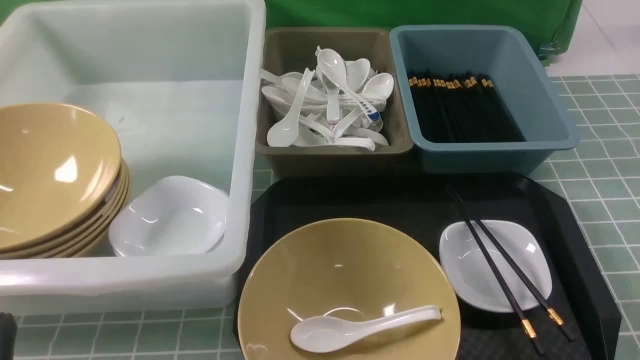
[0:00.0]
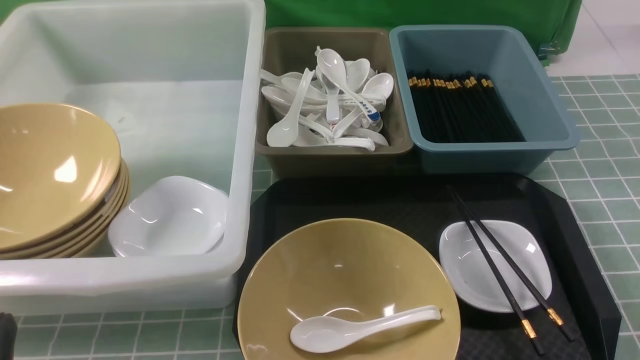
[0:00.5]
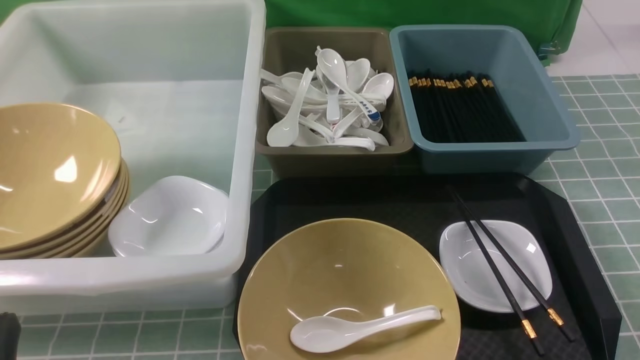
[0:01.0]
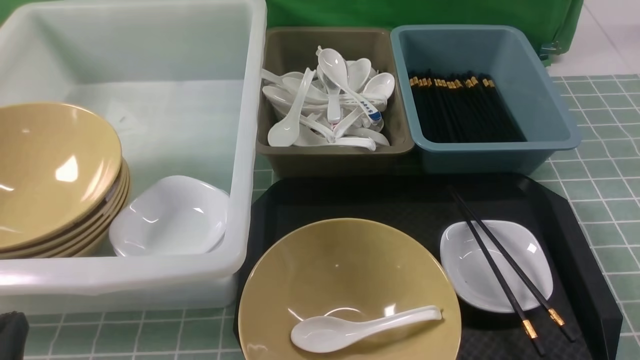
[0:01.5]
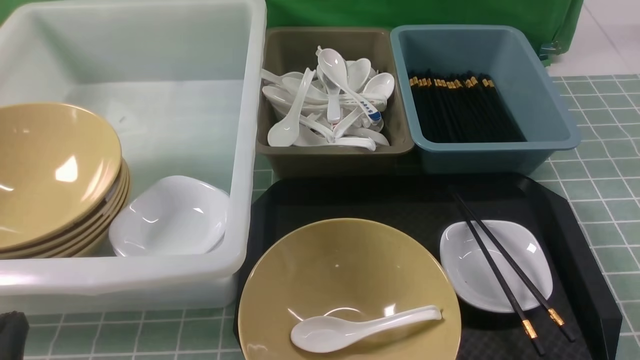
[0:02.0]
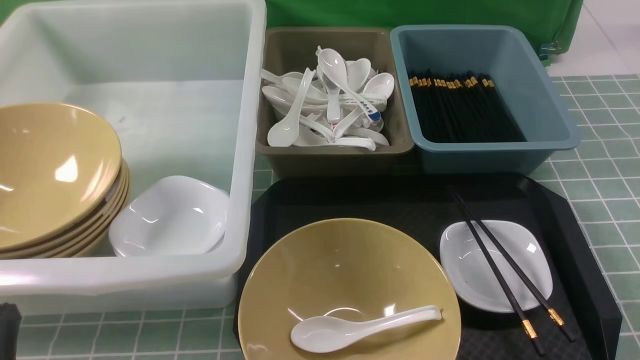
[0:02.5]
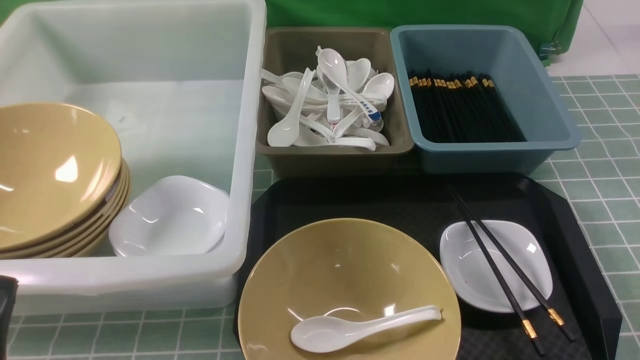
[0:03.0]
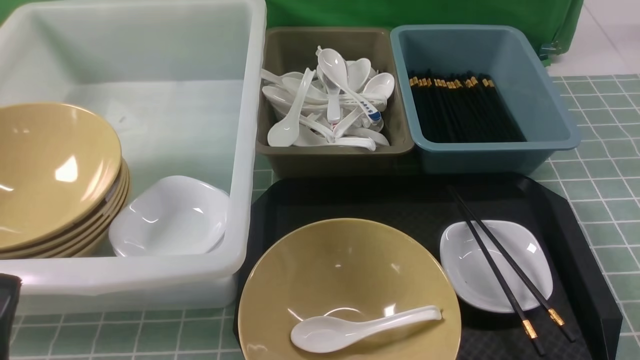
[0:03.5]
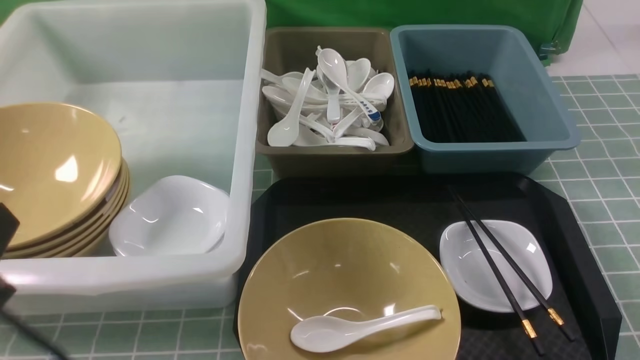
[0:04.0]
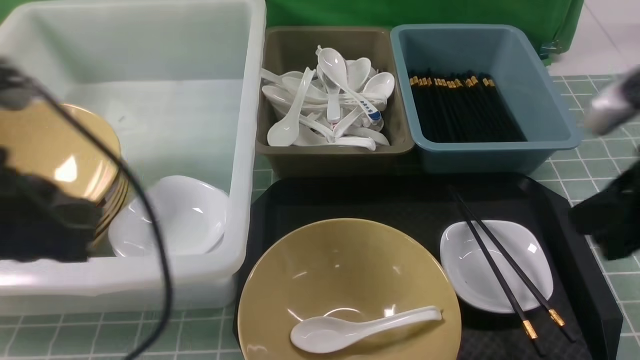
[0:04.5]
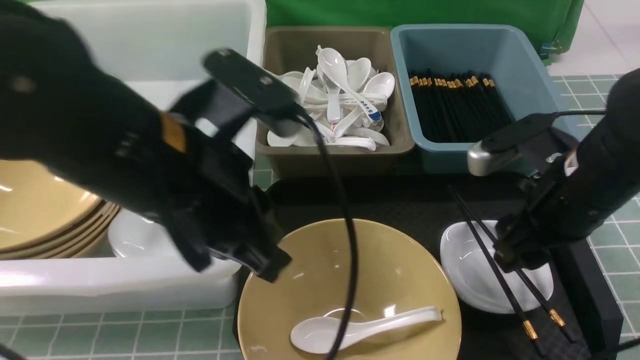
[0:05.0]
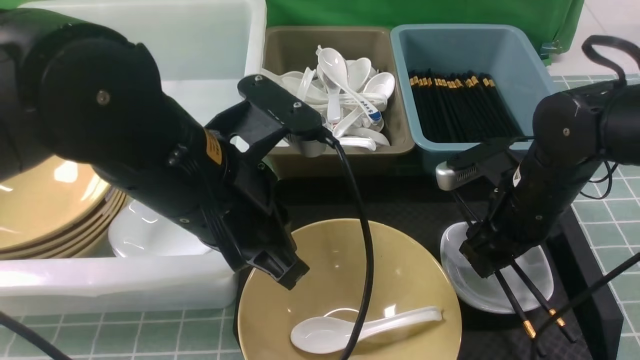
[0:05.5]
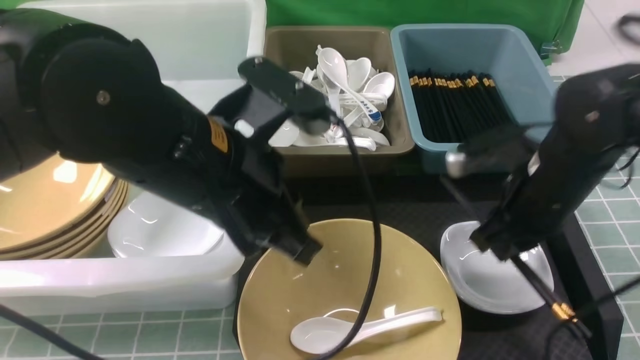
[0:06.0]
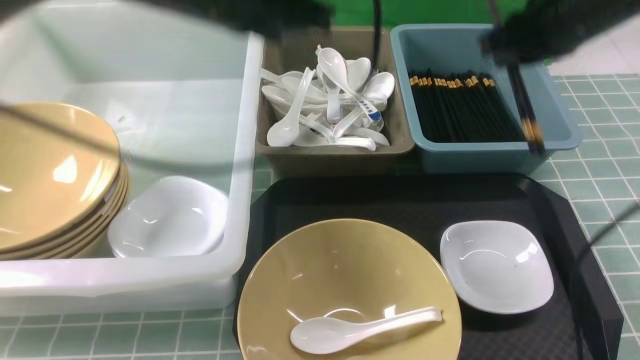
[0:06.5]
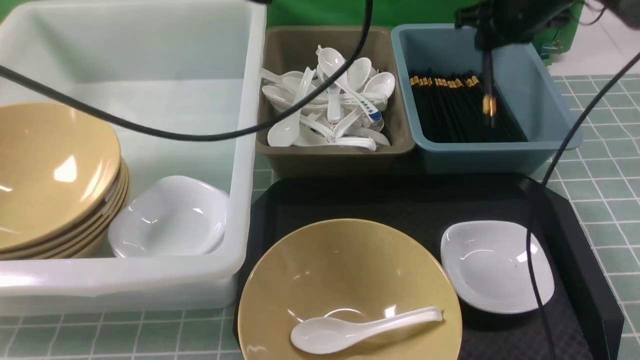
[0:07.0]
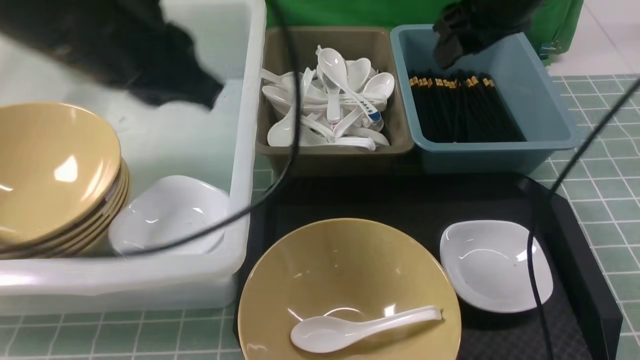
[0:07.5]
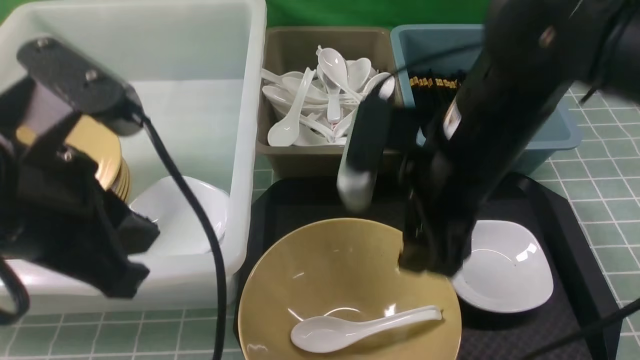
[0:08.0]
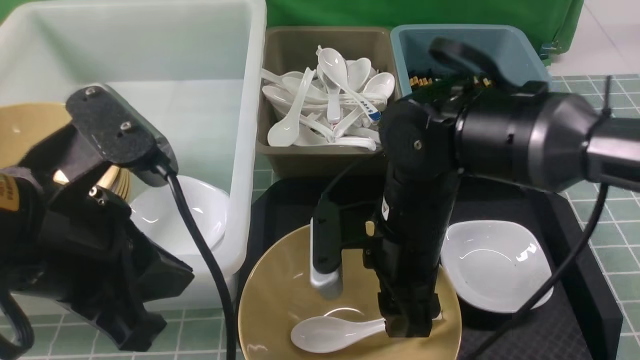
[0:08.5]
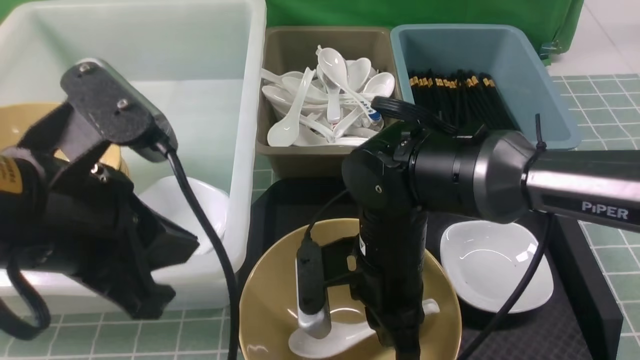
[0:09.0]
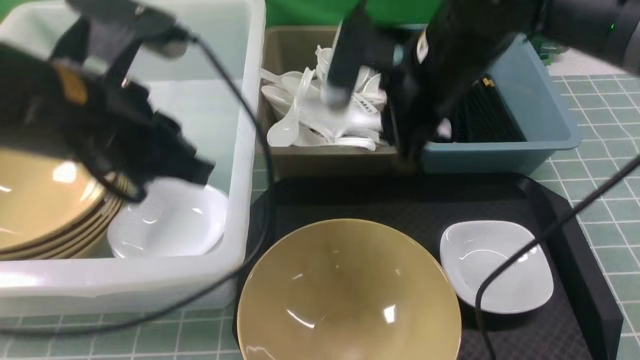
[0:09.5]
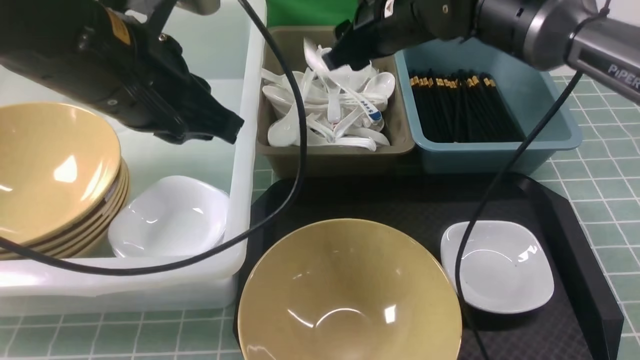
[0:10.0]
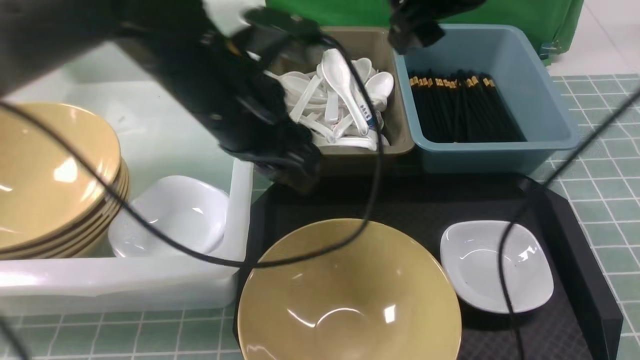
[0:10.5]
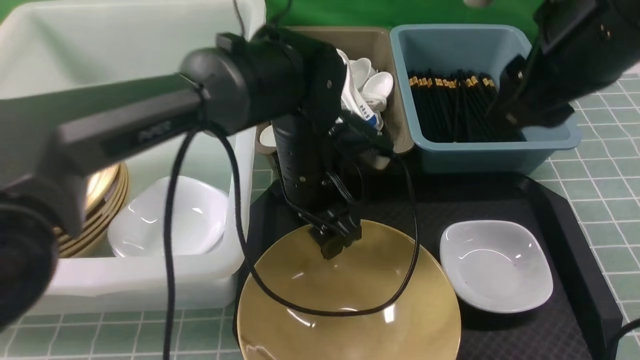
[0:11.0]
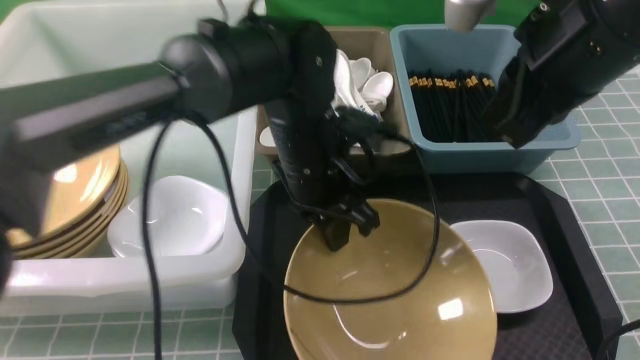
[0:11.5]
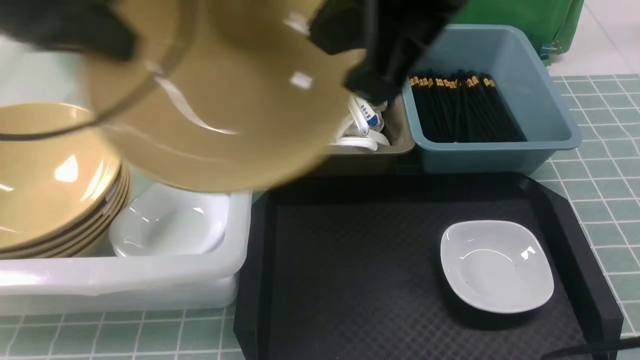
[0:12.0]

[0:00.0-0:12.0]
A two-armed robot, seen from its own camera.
Task of the whole recording: on blue table put chopsticks spoon bowls plates into blue grey white boxes.
Step, 0:00.0 to 0:05.5: use the right arm to grab the chopsticks.
Step, 0:06.5 to 0:07.0: use the right arm to put the chopsticks into the small storage box on the right.
Step, 0:07.5 to 0:09.0: use the right arm to grab the soup spoon in the middle.
Step, 0:09.5 to 0:10.0: use the right arm to put the soup spoon into the small storage box in the middle.
Step, 0:10.5 to 0:11.5: use the left arm to grab the yellow noodle bowl on the left.
0:00.0 to 0:02.0: Both grippers stay put.
0:02.0 to 0:04.0: The left gripper shifts about 15 cm upward.
0:04.0 to 0:06.0: The right gripper moves forward and to the left, roughly 25 cm, and opens and closes again. The left gripper moves to the right and forward, roughly 20 cm.
0:06.0 to 0:08.0: The right gripper travels to the left and upward by some 10 cm, travels forward and back again, about 20 cm each way, and opens. Meanwhile the left gripper is displaced to the left and backward by about 10 cm.
0:08.0 to 0:10.0: The left gripper is displaced forward by roughly 10 cm. The right gripper heads forward, covering some 15 cm, and closes, then opens again.
0:10.0 to 0:12.0: The left gripper moves to the left, about 10 cm, and opens, then closes again, while the right gripper goes roughly 25 cm backward and upward, and closes its fingers.

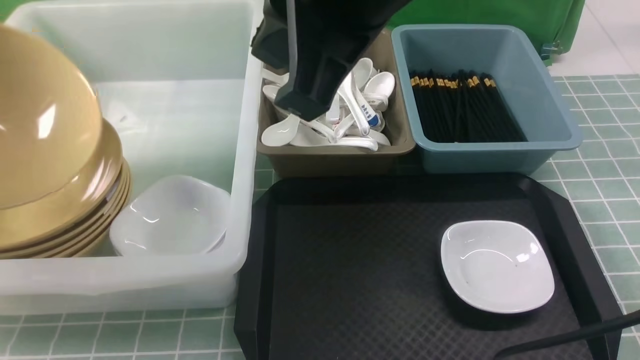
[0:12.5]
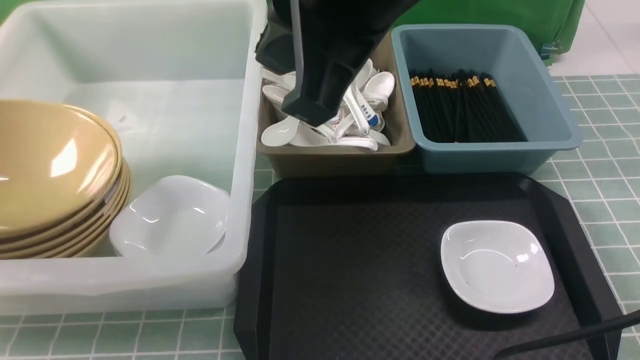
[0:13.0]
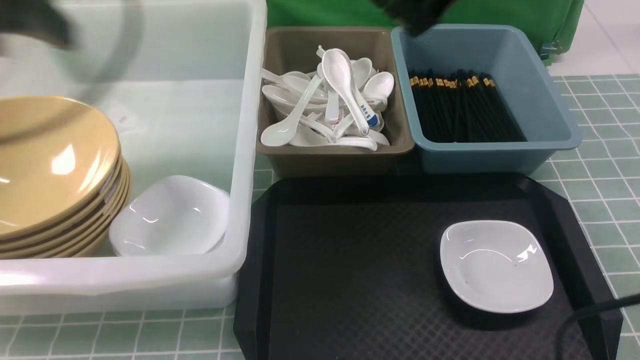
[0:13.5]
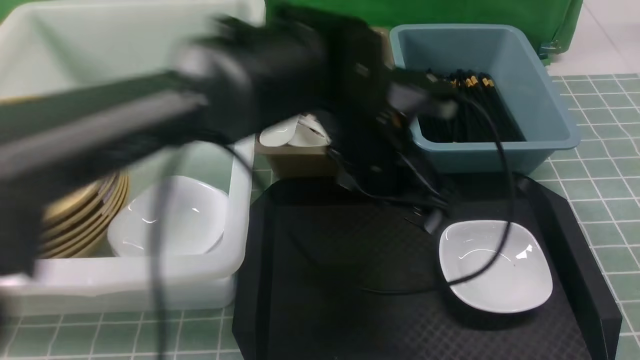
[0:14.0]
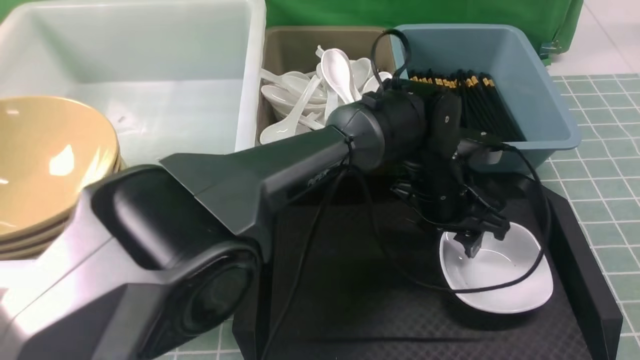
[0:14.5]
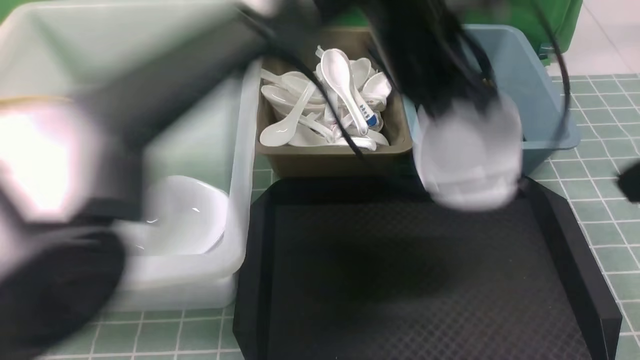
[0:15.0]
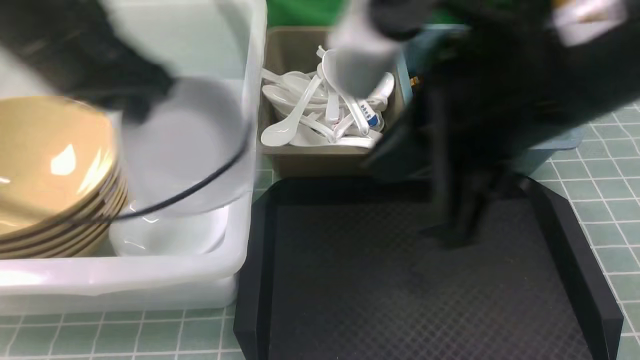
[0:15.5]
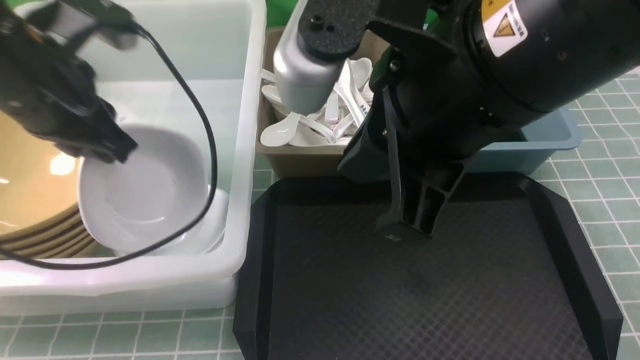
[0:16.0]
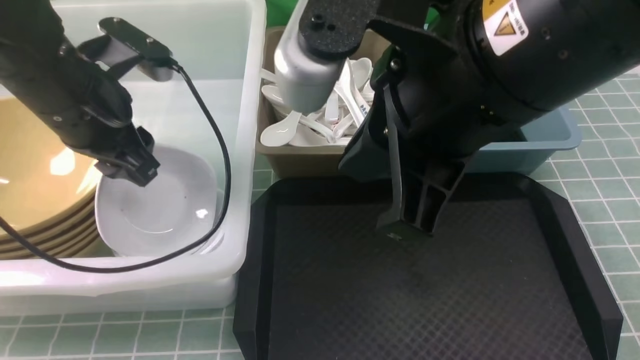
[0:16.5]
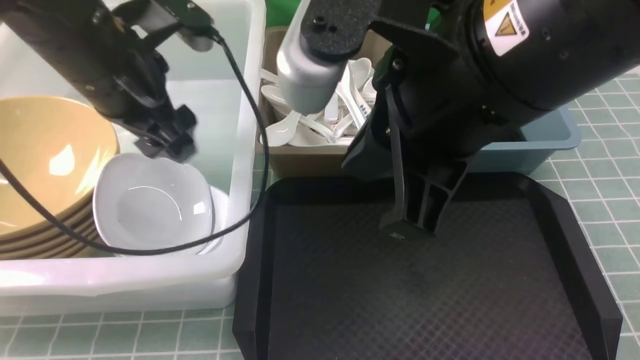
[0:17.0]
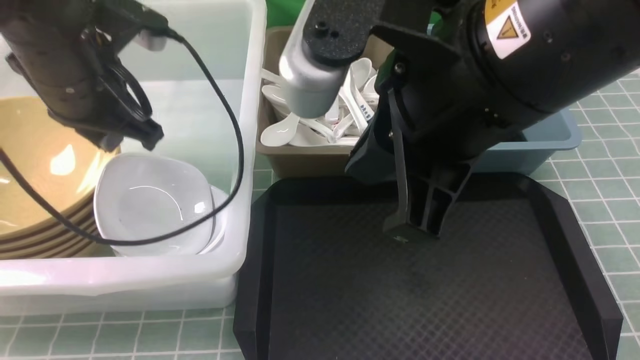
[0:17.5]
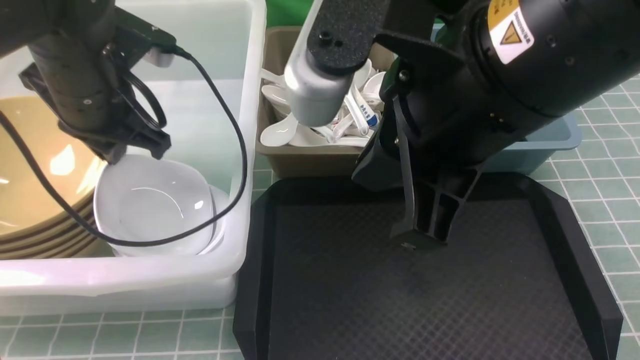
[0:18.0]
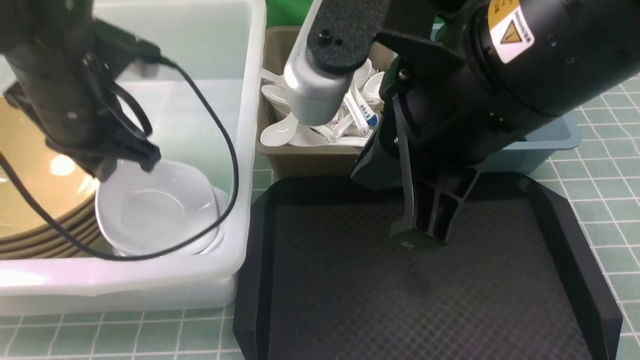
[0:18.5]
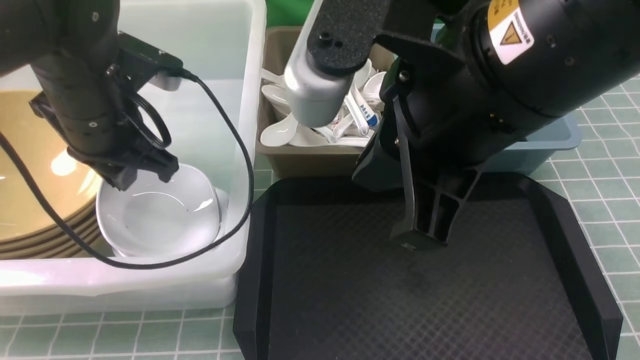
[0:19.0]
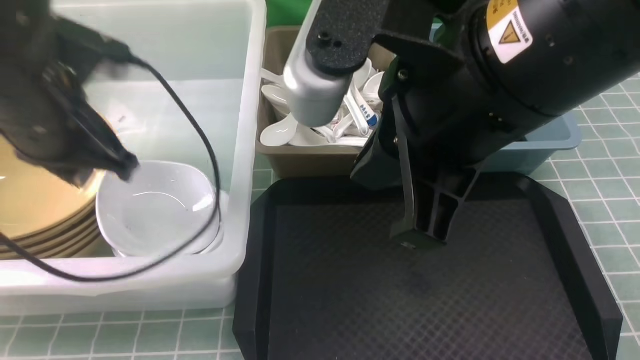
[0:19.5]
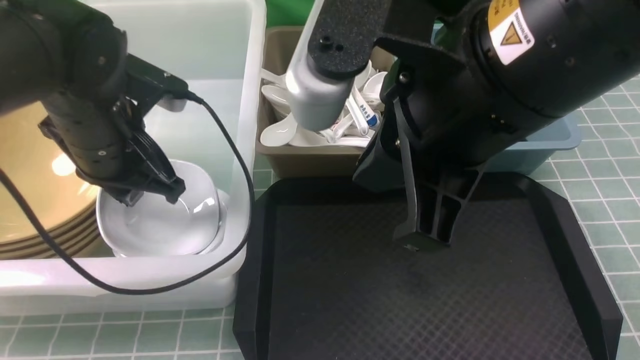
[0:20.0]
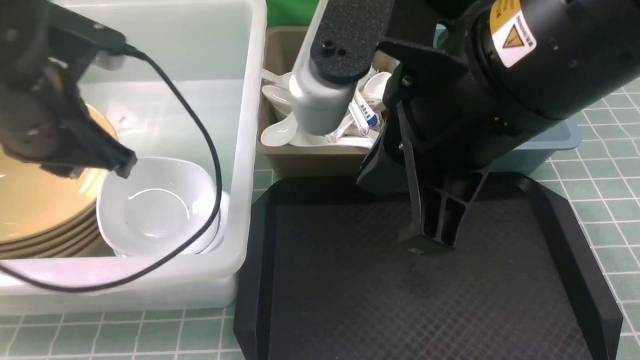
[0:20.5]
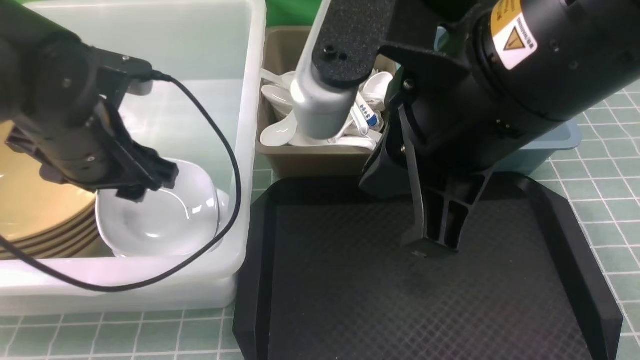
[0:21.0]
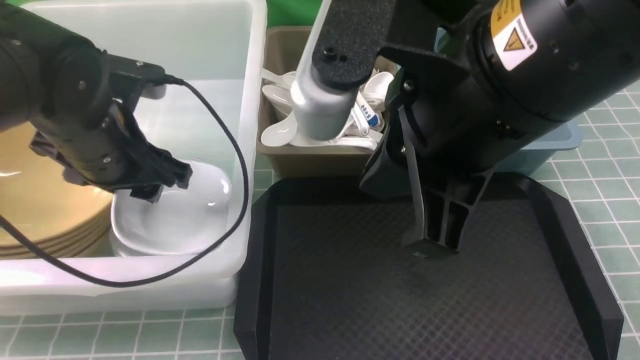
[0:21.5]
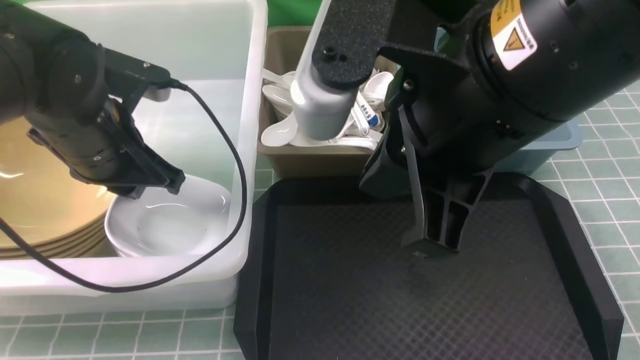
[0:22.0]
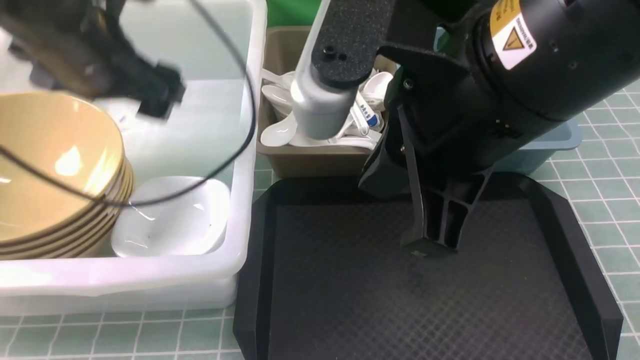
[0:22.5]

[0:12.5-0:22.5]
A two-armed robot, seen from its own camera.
Task of the whole recording: on blue table put chopsticks spoon bowls plates into blue grey white boxes.
Step, 0:13.5 to 0:14.5: use the left arm to grab the plate.
Step, 0:15.0 to 0:16.5: use the left arm to put the plate into the large storage box on the left.
0:12.5 to 0:14.5: The left gripper moves to the right, some 50 cm, and opens its fingers; the right gripper travels to the right and backward by some 25 cm.
0:14.5 to 0:16.5: The left gripper is displaced to the left and upward by approximately 35 cm, and closes, then opens again, while the right gripper goes roughly 20 cm to the left.
0:16.5 to 0:18.5: The left gripper closes up.
0:18.5 to 0:20.5: The grippers move only a little.
0:20.5 to 0:22.5: The left gripper shifts by some 5 cm, and opens its fingers.
